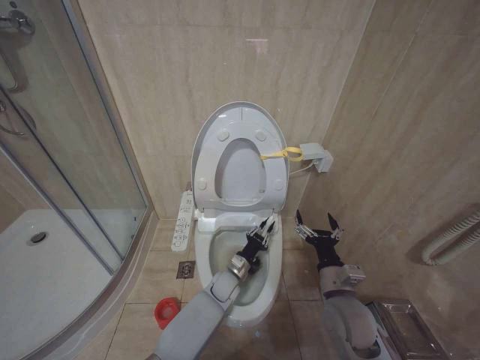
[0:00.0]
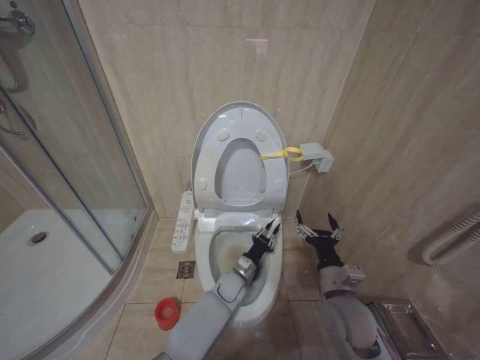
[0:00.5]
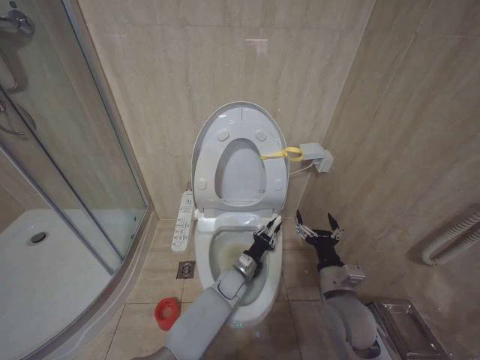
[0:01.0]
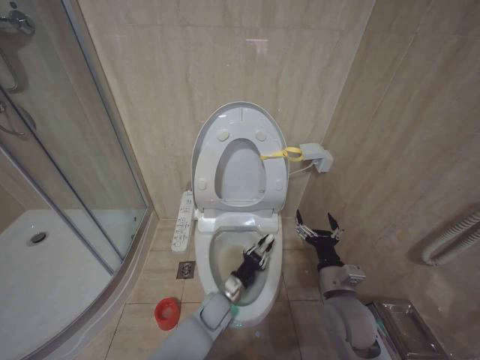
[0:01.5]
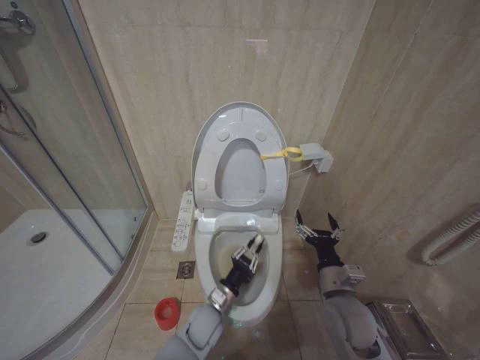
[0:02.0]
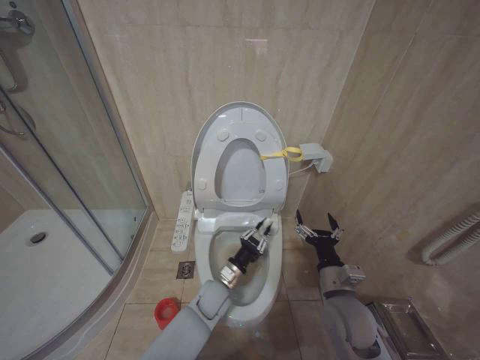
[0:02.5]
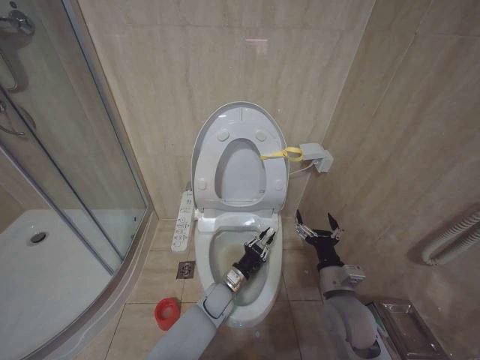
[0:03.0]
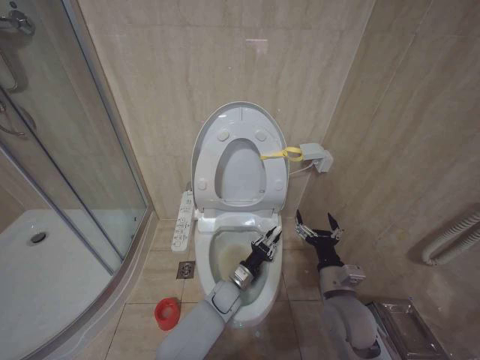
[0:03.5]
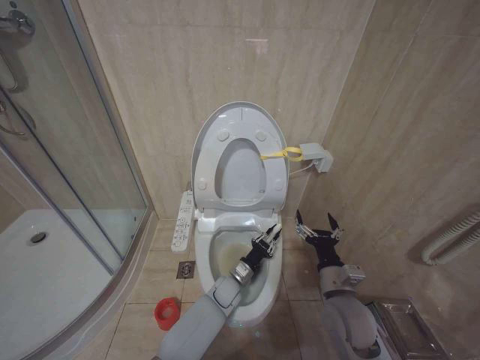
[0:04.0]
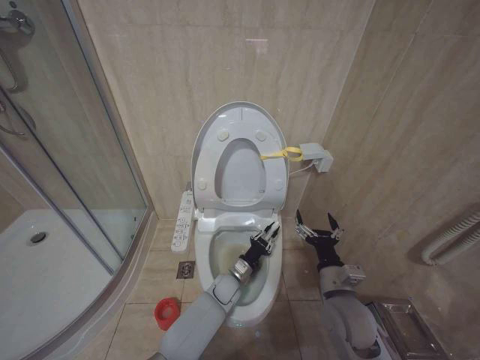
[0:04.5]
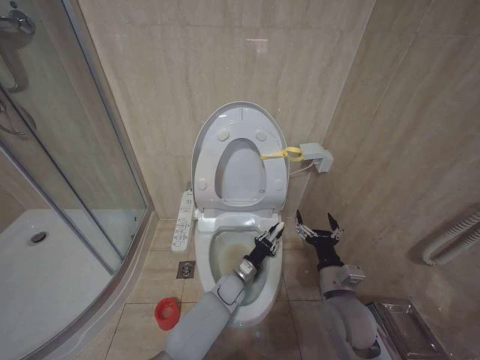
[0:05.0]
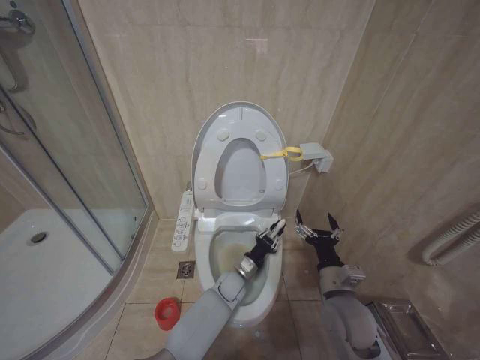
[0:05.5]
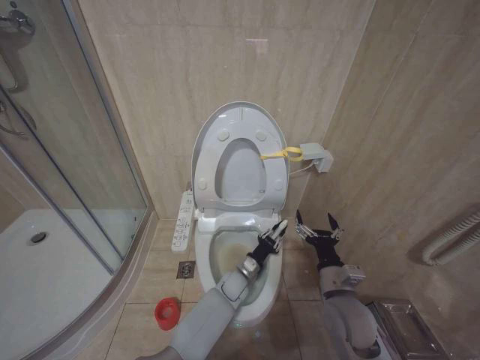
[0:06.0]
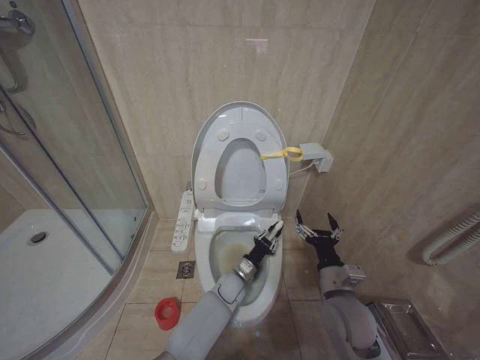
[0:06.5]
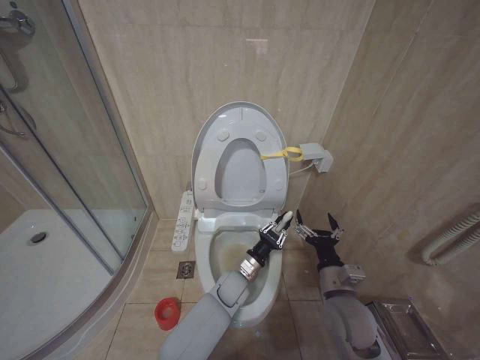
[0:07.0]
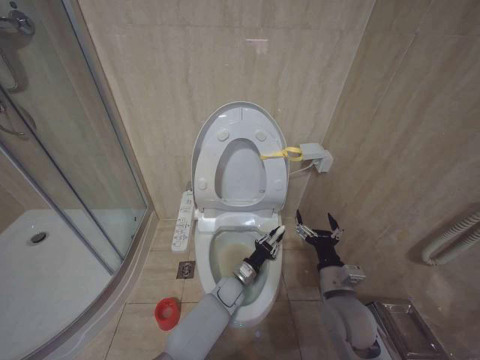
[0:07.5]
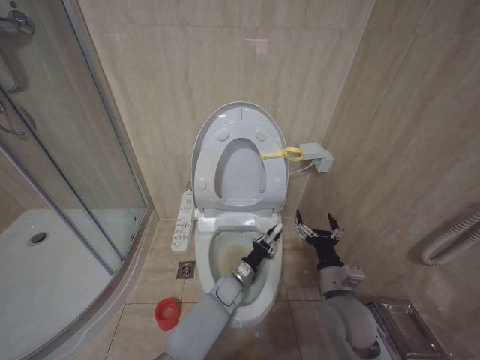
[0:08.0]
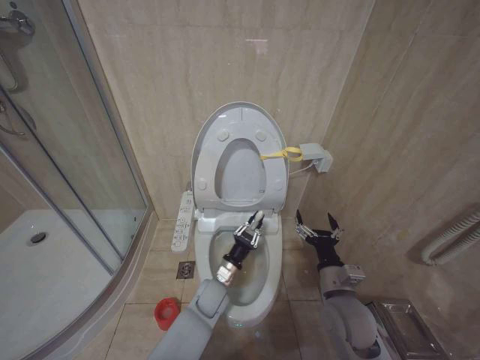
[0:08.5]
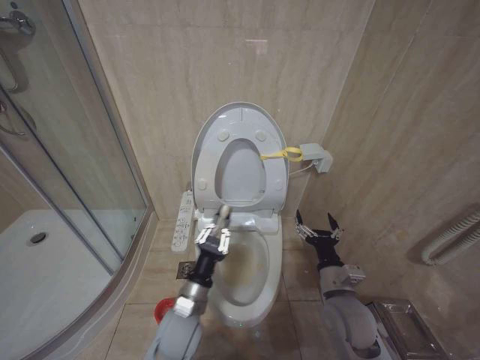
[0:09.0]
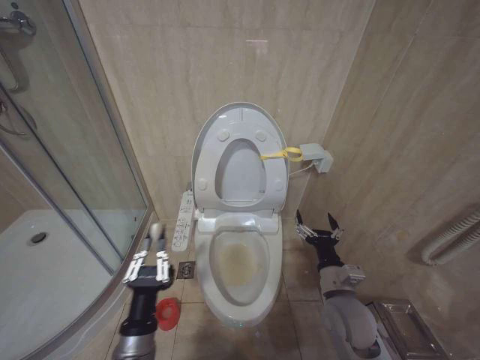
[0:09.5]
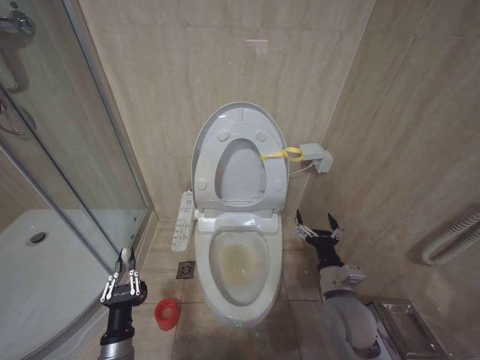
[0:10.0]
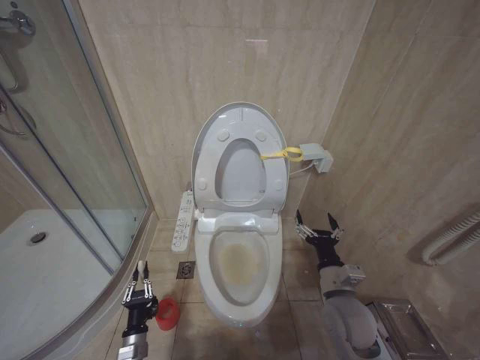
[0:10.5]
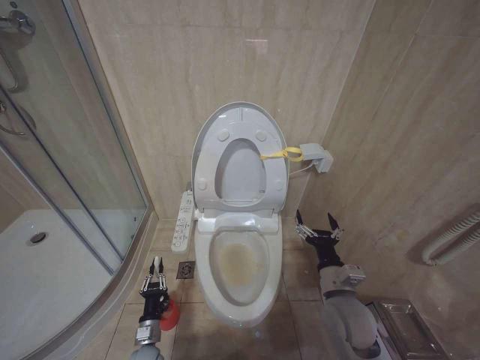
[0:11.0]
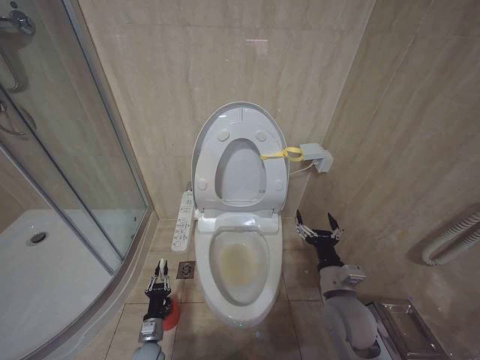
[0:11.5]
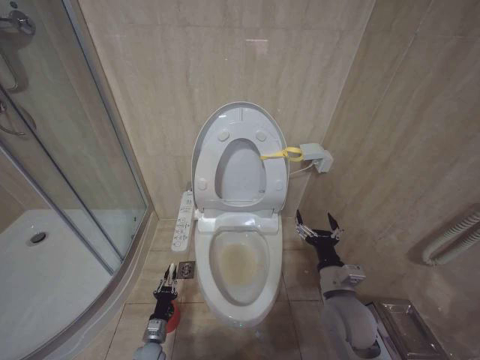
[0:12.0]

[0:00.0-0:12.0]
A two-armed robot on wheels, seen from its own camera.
Task of the whole recording: Open the toilet lid, clean the toilet bowl with a toilet brush, close the toilet lid, and flush.
0:00.0 to 0:02.0: The left gripper shifts roughly 10 cm backward and to the left.
0:02.0 to 0:04.0: The left gripper goes some 10 cm forward and to the right.
0:04.0 to 0:06.0: The grippers stay close to where they were, moving slightly.
0:08.0 to 0:10.0: The left gripper goes approximately 35 cm to the left and backward.
0:10.0 to 0:12.0: The left gripper heads downward and forward, covering some 25 cm.

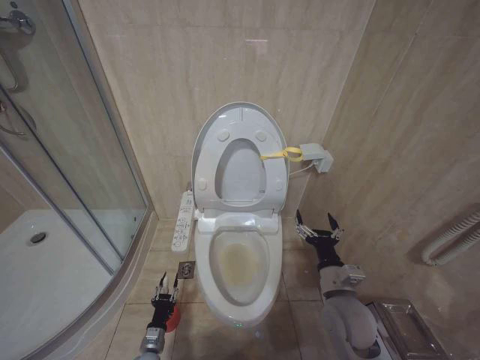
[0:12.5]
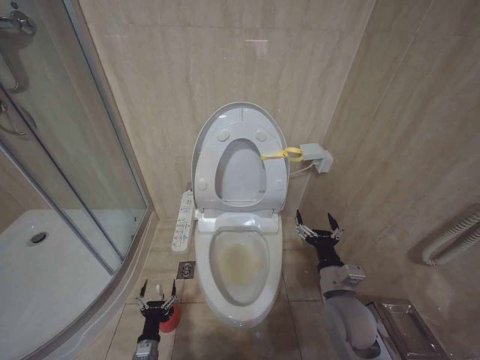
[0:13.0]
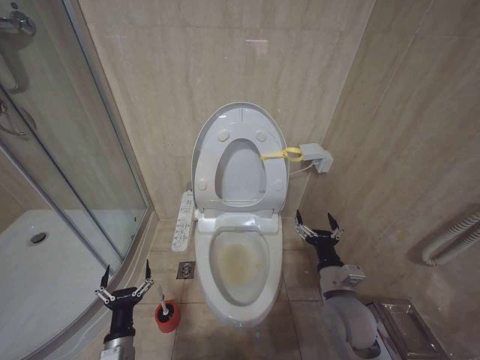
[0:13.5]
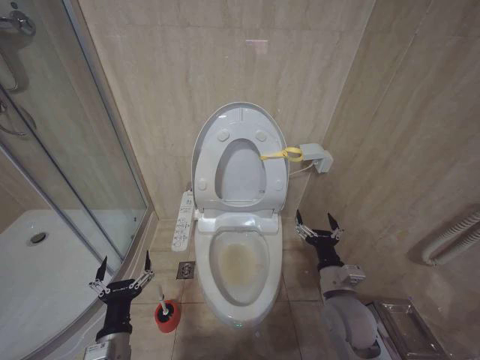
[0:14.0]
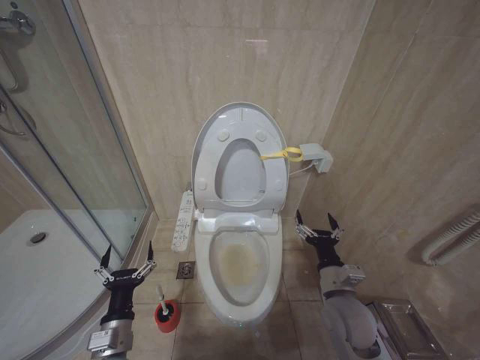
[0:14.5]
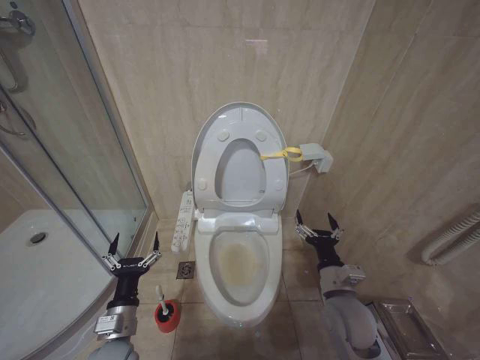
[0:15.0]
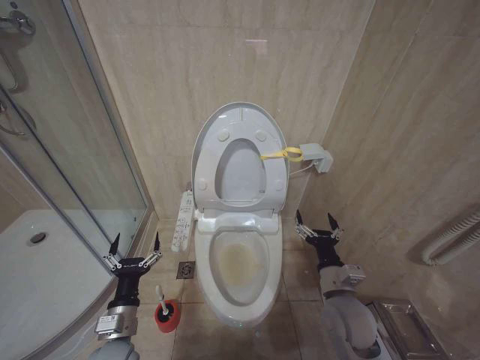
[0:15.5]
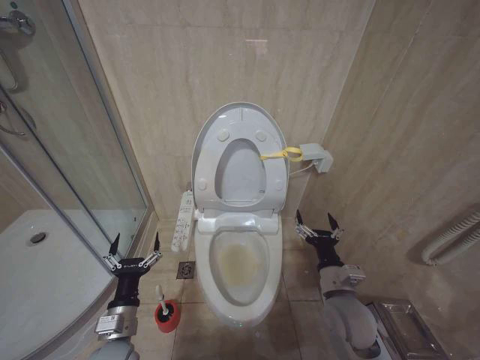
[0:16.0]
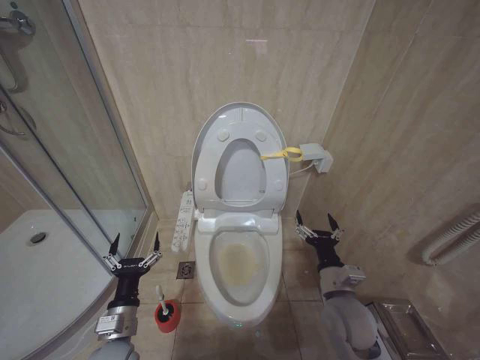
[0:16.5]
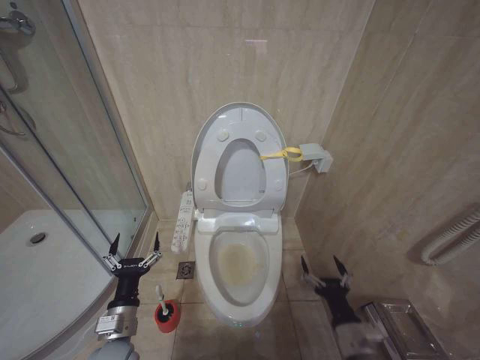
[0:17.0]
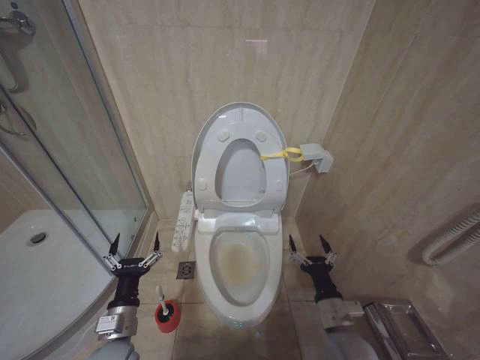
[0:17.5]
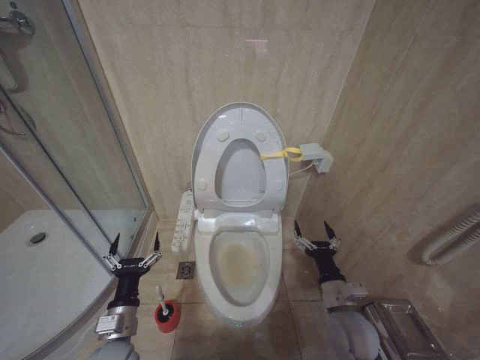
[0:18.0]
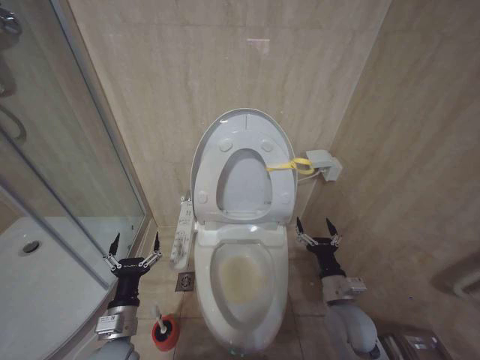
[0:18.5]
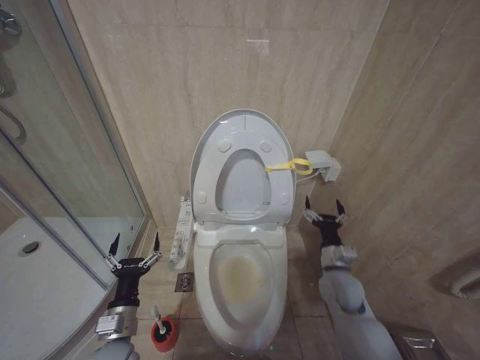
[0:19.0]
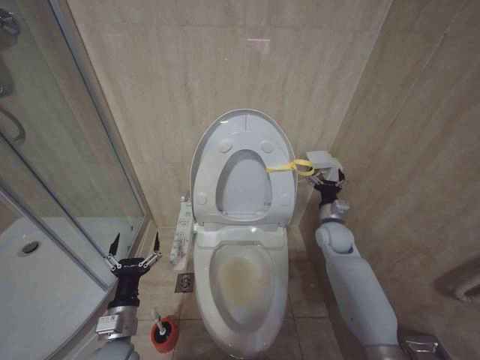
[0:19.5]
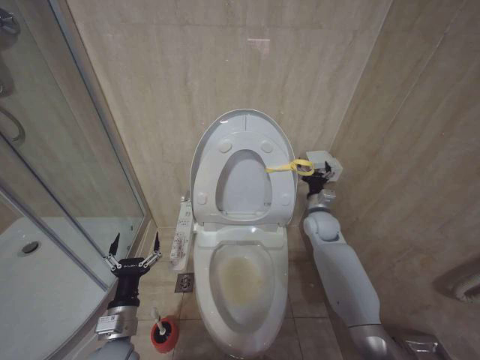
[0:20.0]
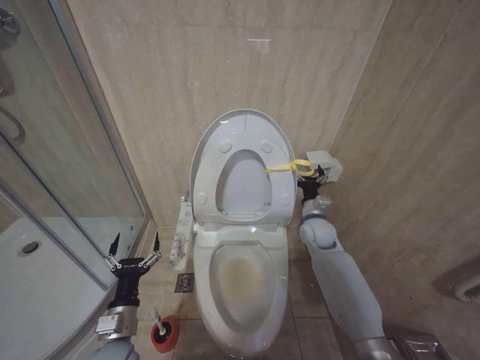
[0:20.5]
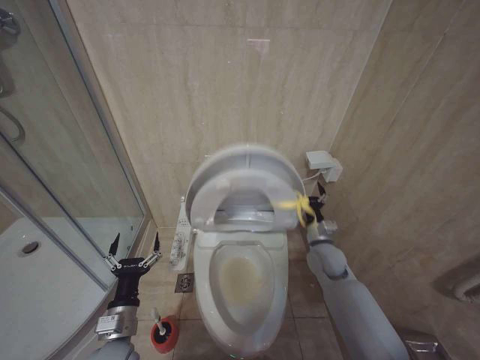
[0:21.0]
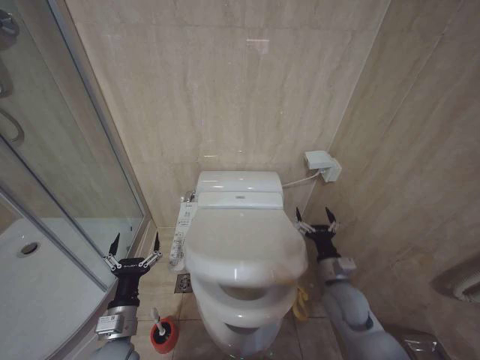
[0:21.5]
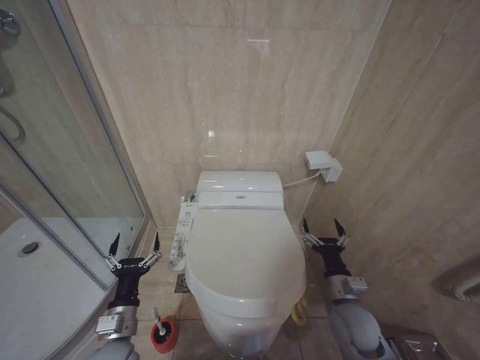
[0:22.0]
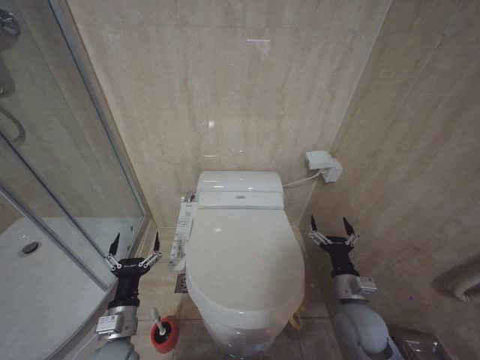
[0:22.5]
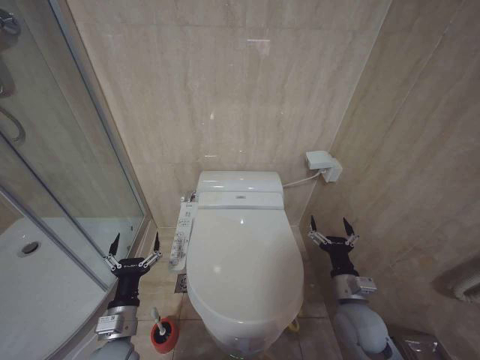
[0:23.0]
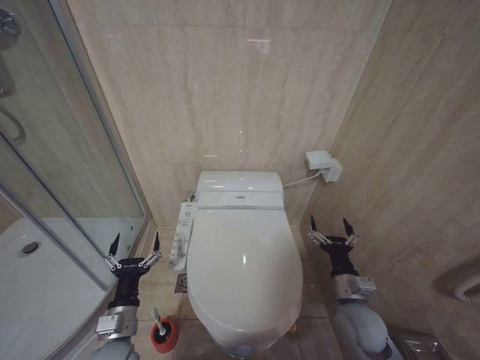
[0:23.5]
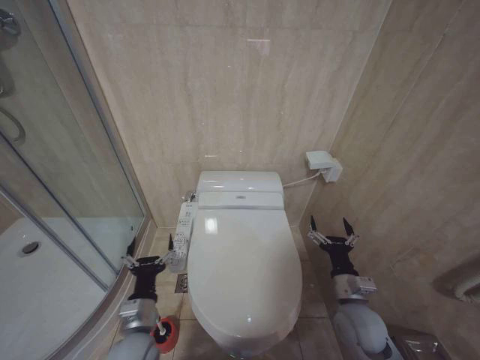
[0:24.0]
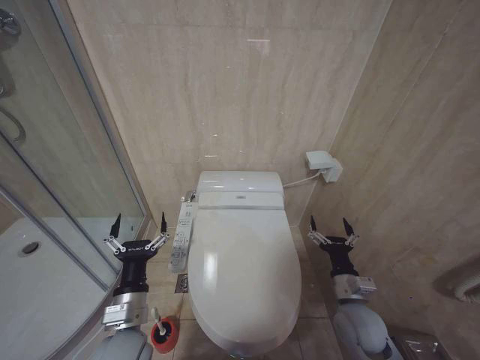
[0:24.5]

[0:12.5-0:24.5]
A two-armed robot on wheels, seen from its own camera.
Task of the whole recording: Open the toilet lid, clean the toilet bowl with a toilet brush, close the toilet lid, and flush.
0:12.5 to 0:14.5: The left gripper heads upward, covering some 25 cm, and opens.
0:14.5 to 0:16.5: The grippers move only a little.
0:16.5 to 0:18.5: The right gripper travels downward by some 5 cm, and reaches some 10 cm backward, then returns.
0:18.5 to 0:20.5: The right gripper travels forward by approximately 20 cm.
0:20.5 to 0:22.5: The right gripper travels backward by roughly 20 cm.
0:22.5 to 0:24.5: The left gripper goes approximately 10 cm upward and to the right.

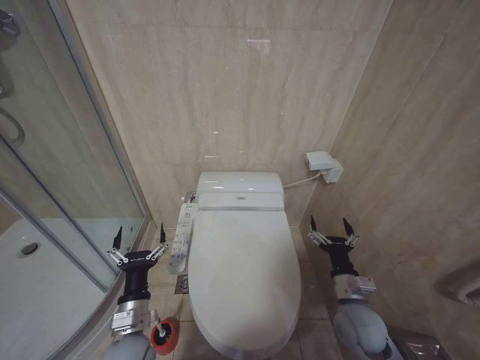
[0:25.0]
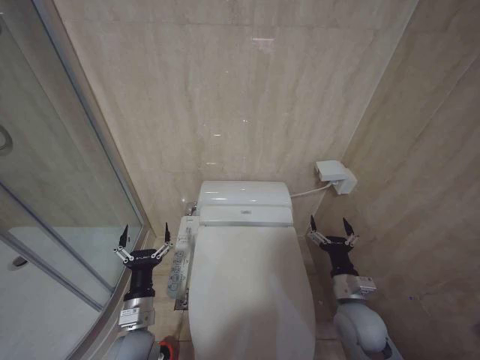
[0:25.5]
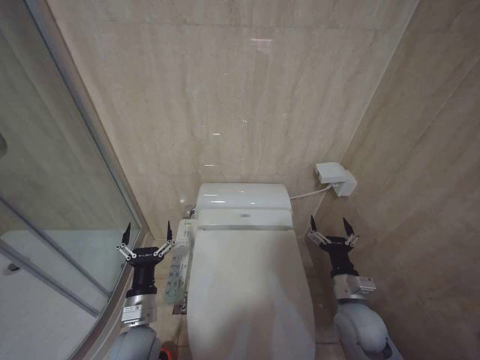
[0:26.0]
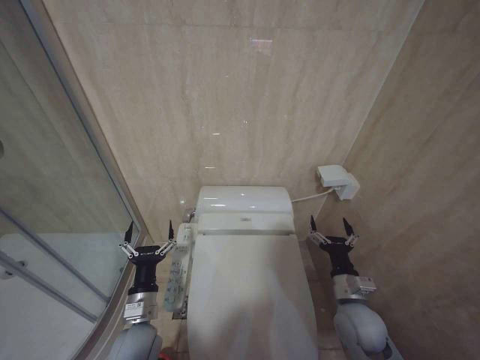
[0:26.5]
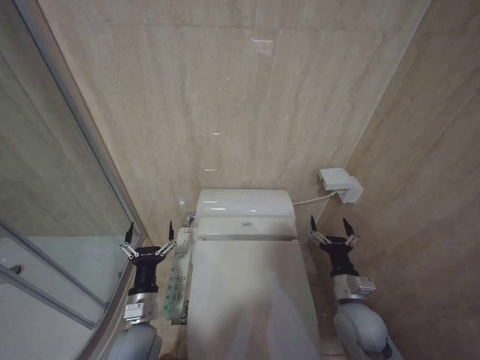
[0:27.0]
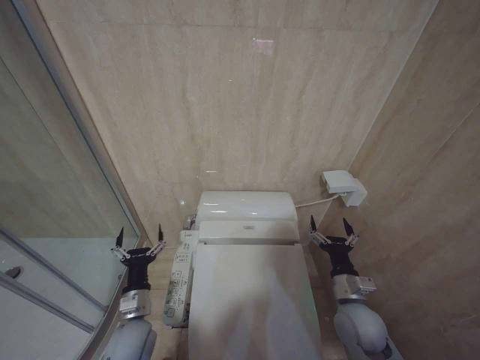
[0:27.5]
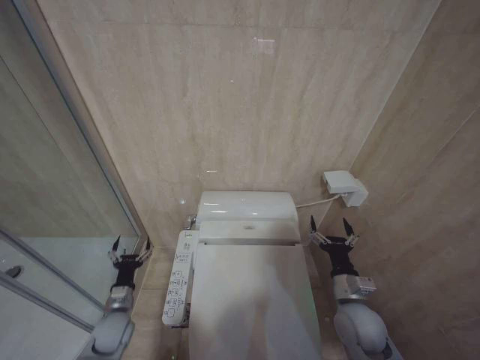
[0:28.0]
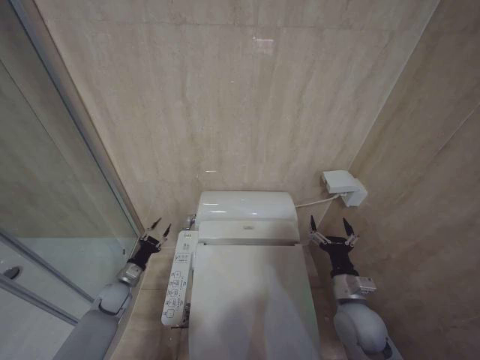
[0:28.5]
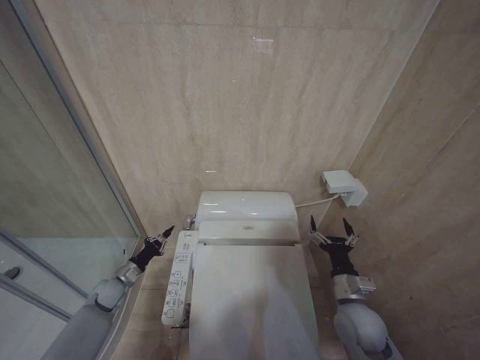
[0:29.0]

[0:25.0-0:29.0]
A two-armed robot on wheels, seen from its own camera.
Task of the whole recording: Open the toilet lid, clean the toilet bowl with a toilet brush, close the toilet lid, and flush.
0:25.0 to 0:27.0: The grippers stay close to where they were, moving slightly.
0:27.0 to 0:29.0: The left gripper is displaced forward, to the left and downward by approximately 25 cm, and closes up.
